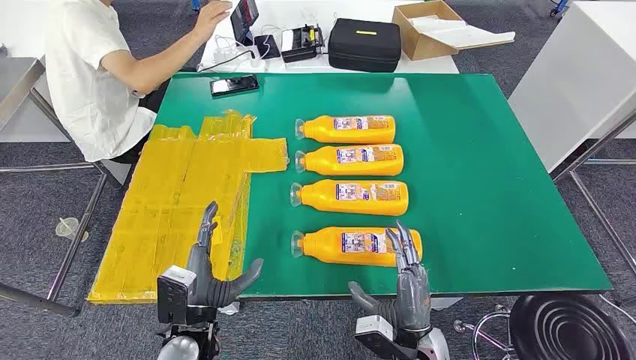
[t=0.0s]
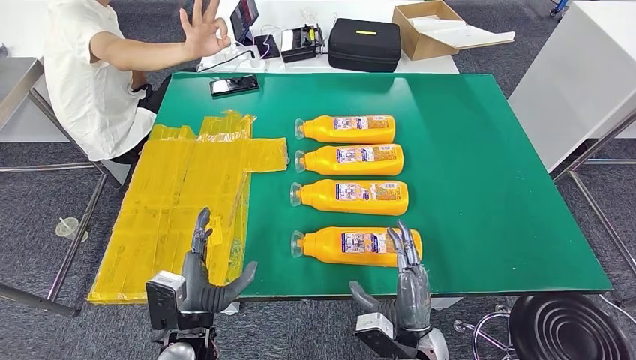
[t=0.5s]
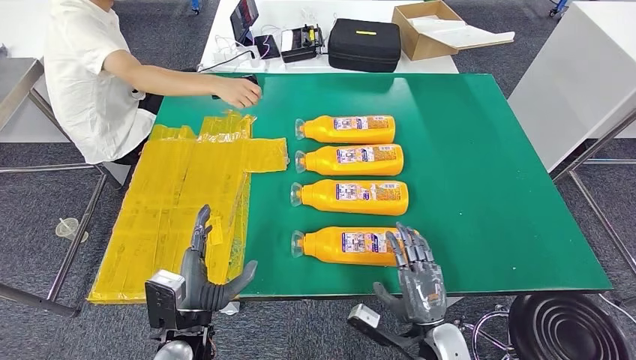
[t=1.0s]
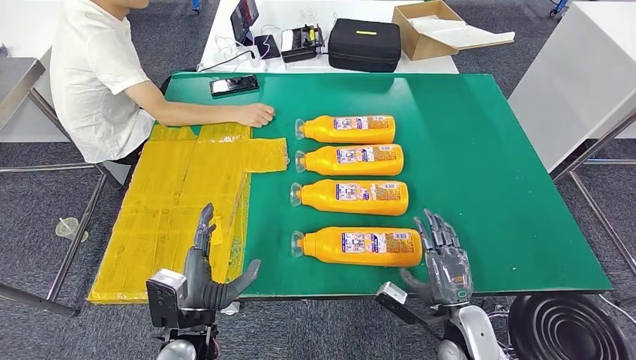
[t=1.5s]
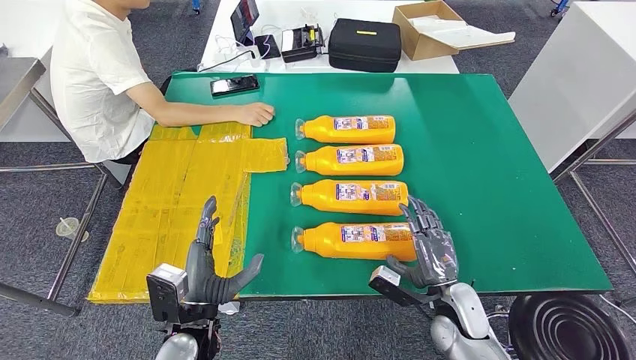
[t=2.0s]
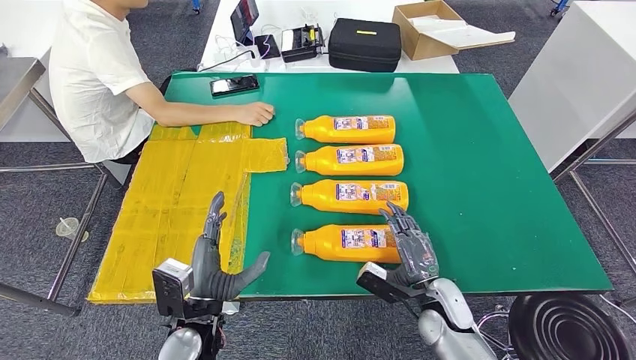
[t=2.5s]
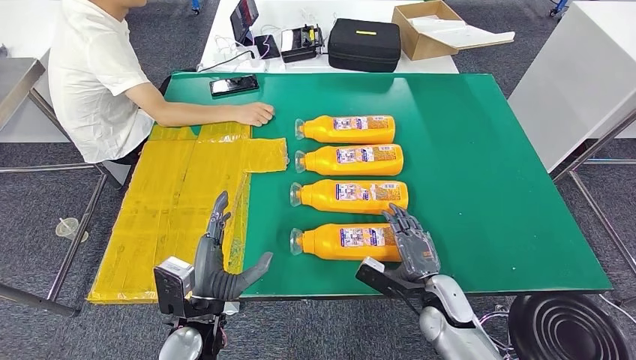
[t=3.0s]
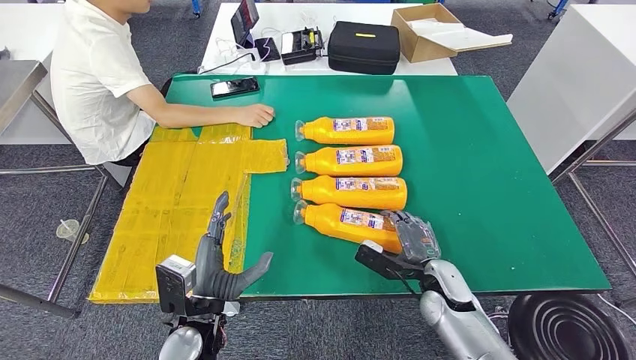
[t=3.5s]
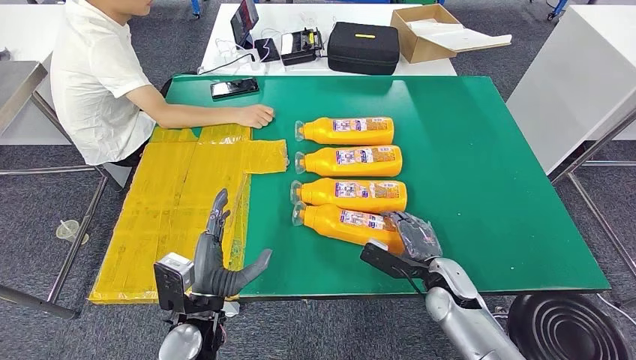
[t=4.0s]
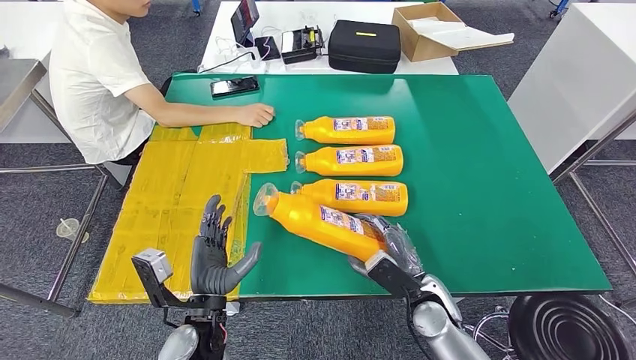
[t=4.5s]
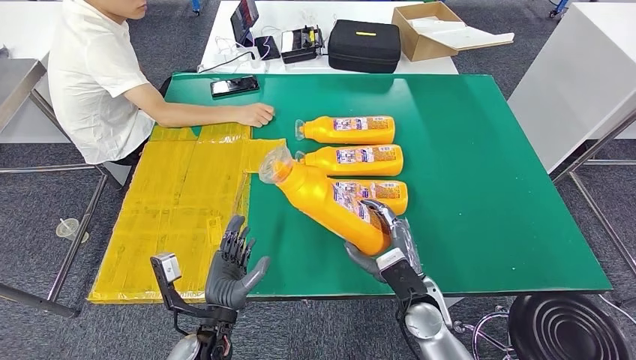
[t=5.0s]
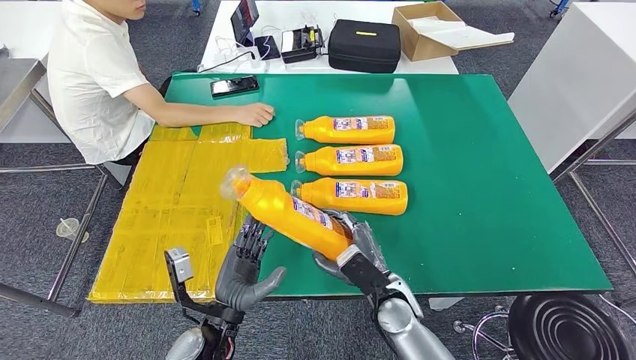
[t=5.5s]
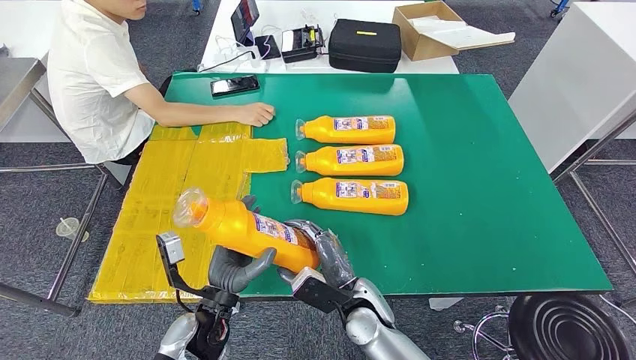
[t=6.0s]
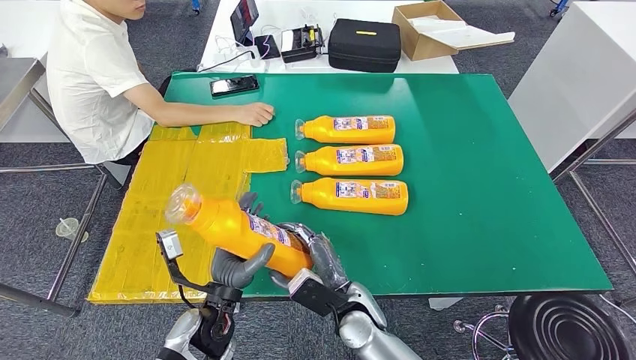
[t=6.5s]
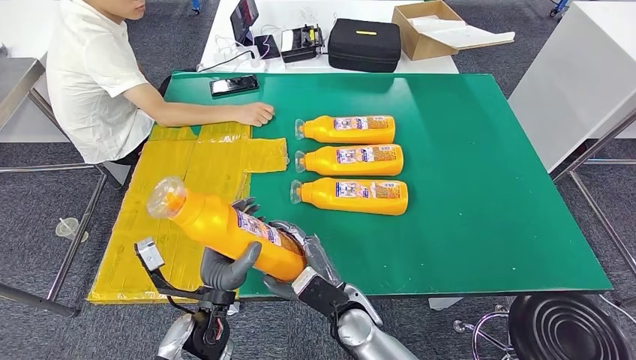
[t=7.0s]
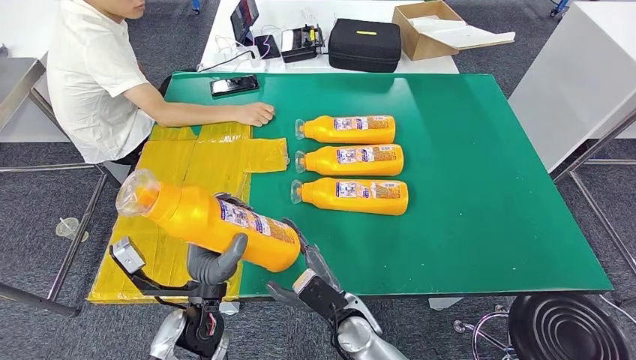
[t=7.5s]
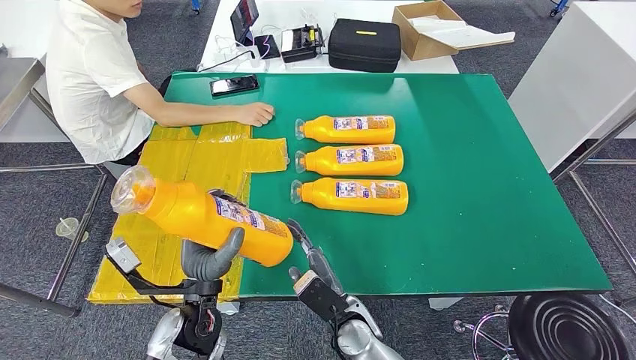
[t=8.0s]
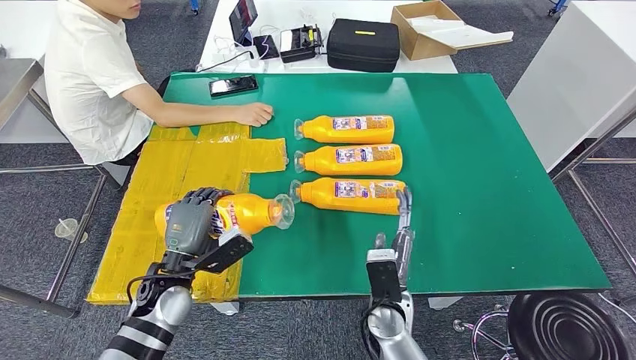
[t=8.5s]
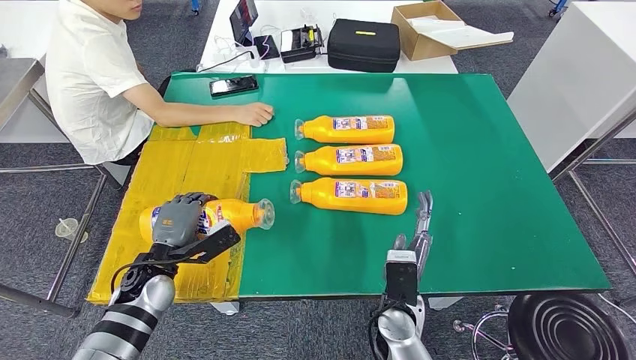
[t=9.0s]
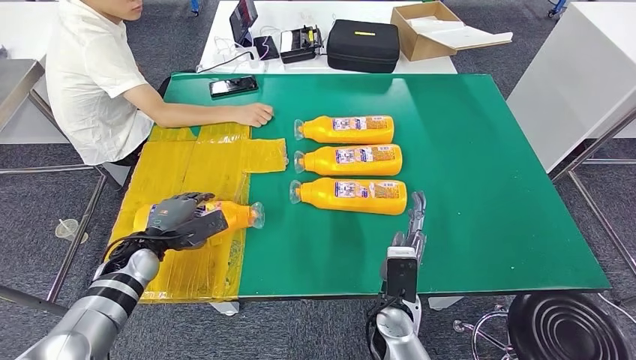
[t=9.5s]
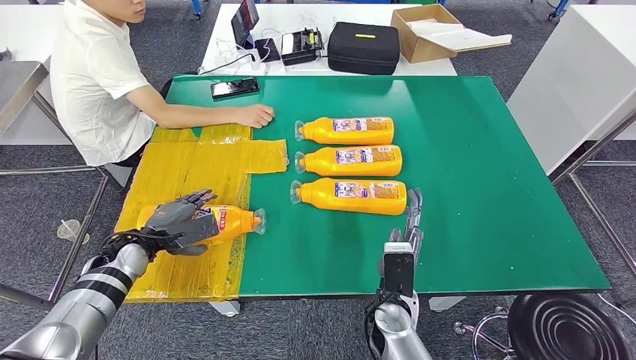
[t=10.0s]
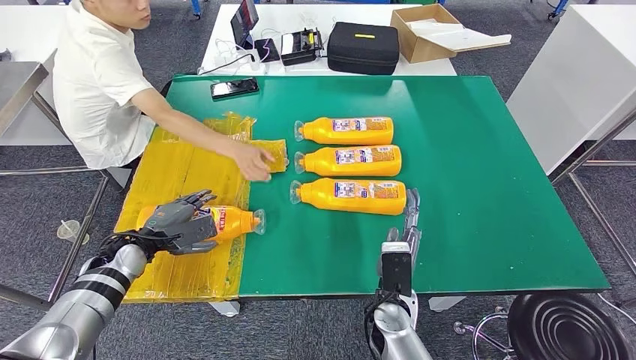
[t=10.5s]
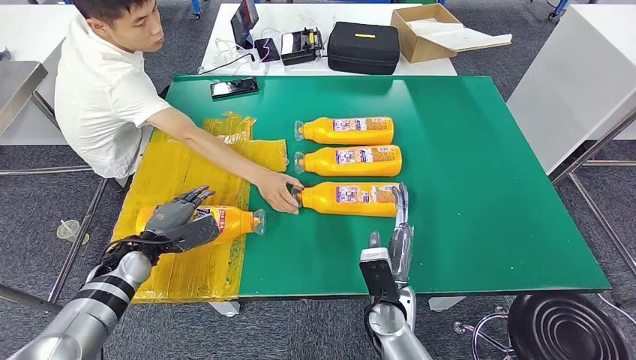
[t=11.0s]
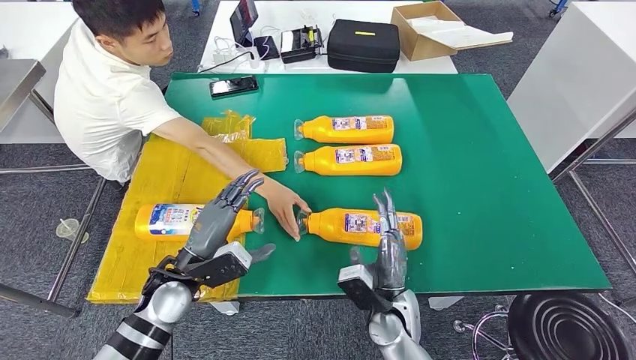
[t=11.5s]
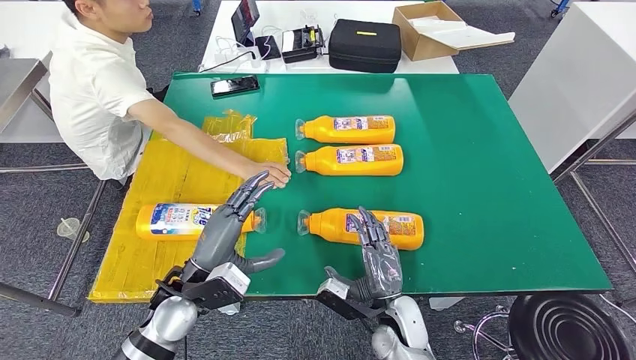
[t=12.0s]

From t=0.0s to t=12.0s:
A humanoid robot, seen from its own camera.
Step, from t=0.0s to t=6.0s: Take the bottle from the table.
Step, from t=6.5s to t=10.0s: Flip the bottle to face forward.
From t=4.0s to t=6.0s: The right hand shifts about 15 cm to the left.
From t=6.0s to t=8.0s: The hands make only small movements.

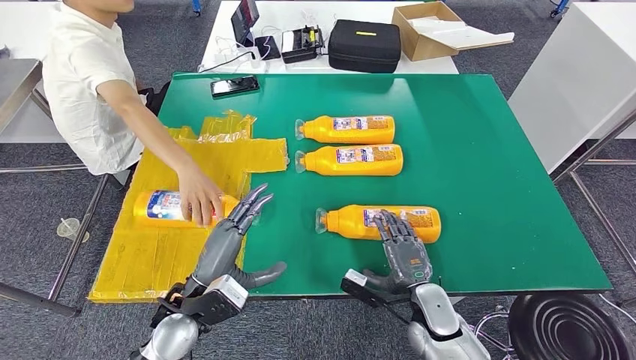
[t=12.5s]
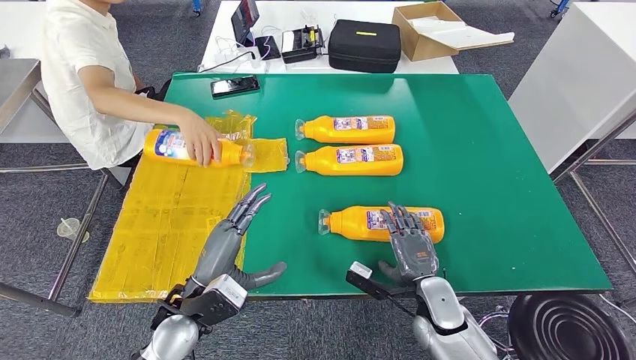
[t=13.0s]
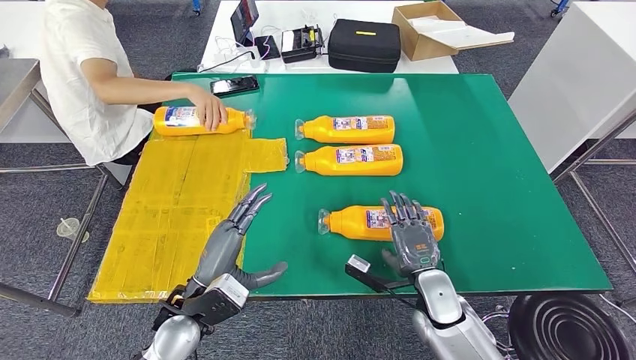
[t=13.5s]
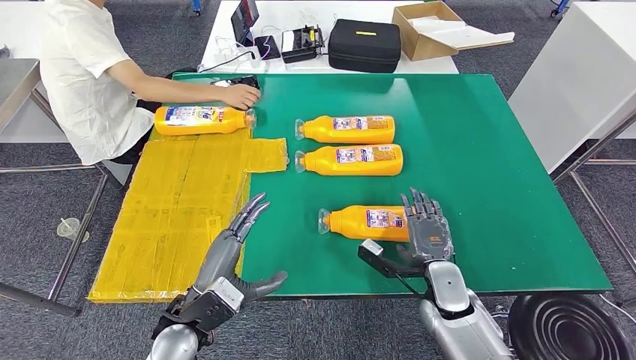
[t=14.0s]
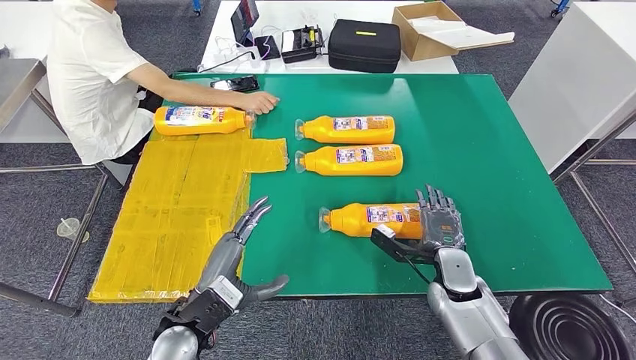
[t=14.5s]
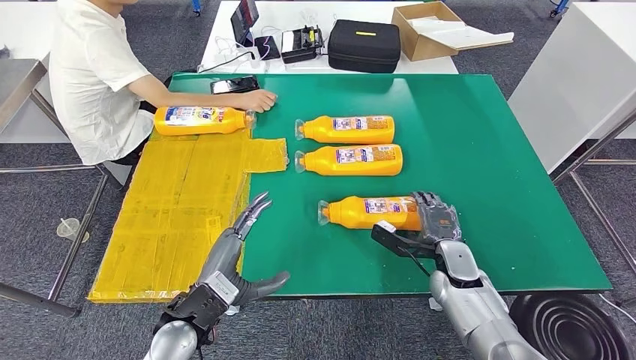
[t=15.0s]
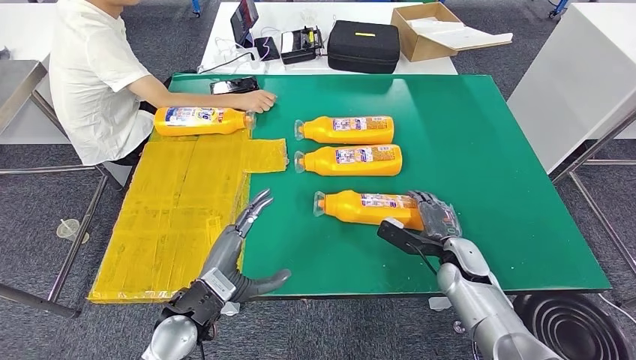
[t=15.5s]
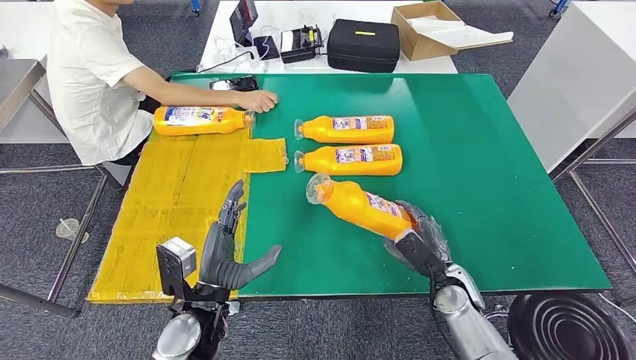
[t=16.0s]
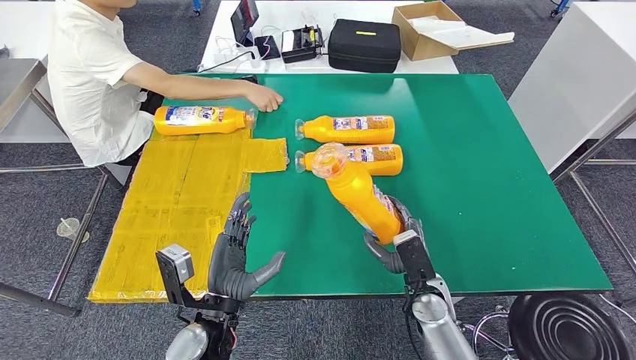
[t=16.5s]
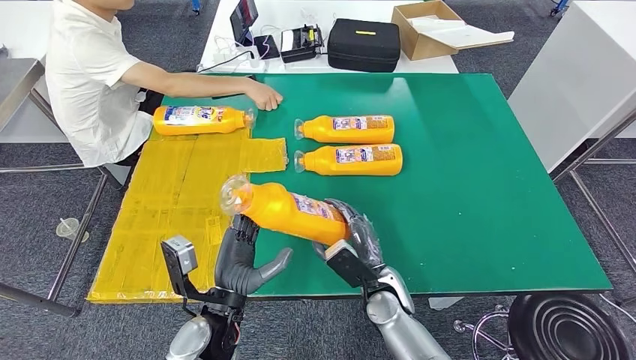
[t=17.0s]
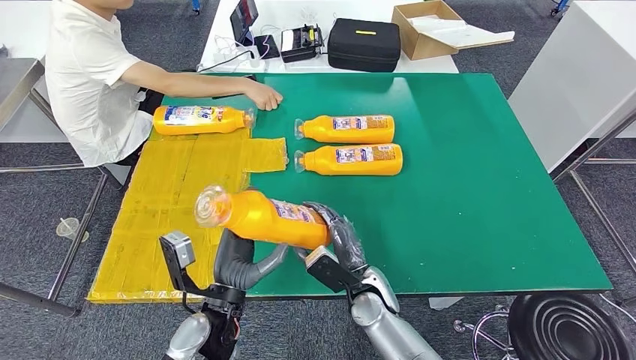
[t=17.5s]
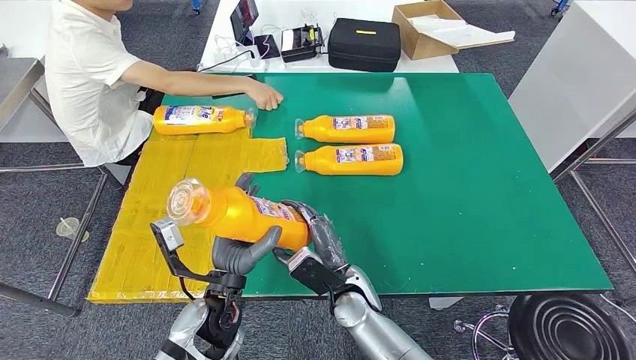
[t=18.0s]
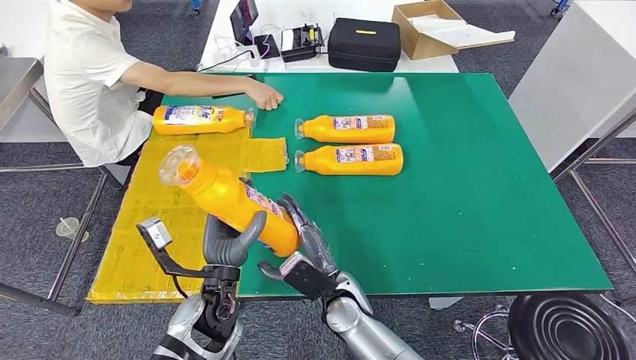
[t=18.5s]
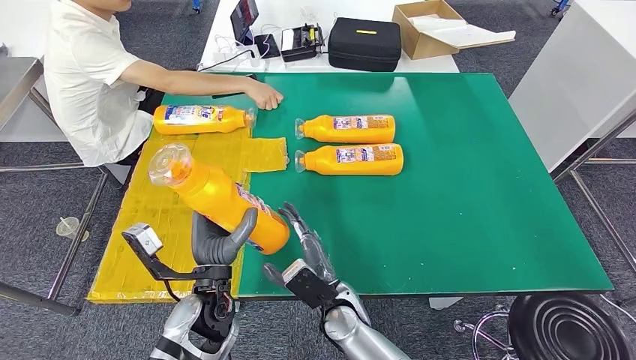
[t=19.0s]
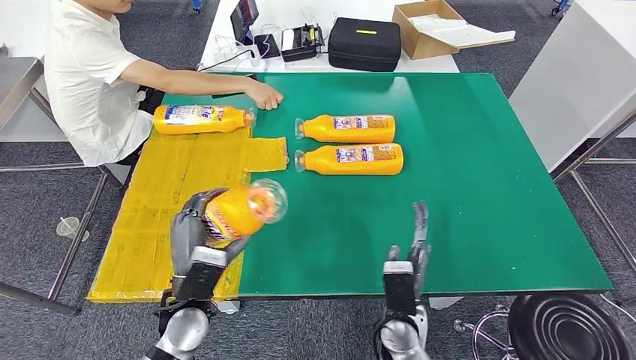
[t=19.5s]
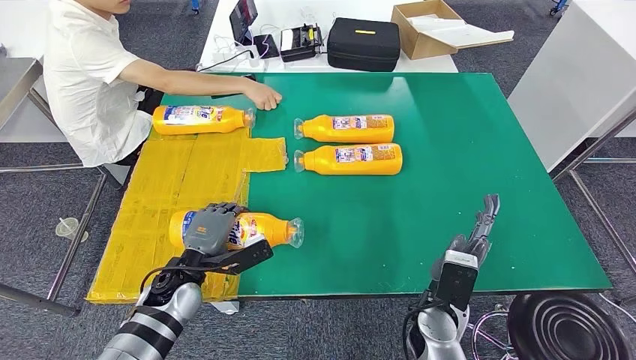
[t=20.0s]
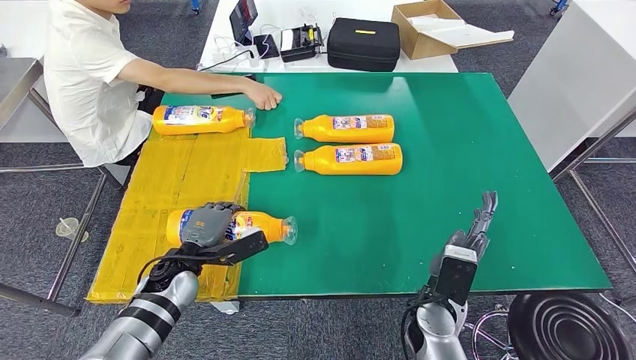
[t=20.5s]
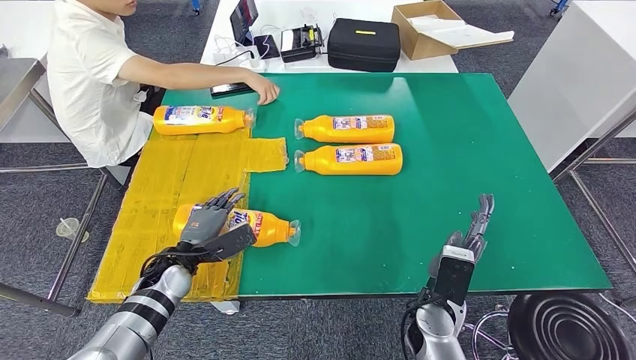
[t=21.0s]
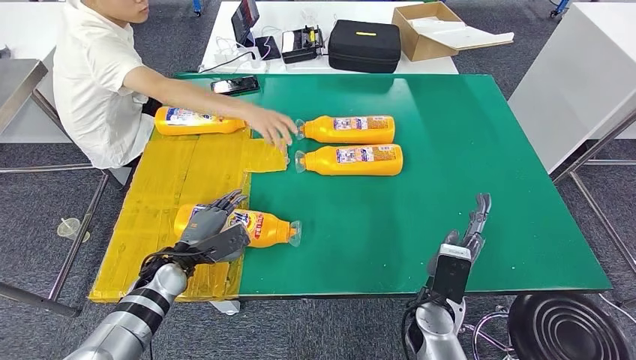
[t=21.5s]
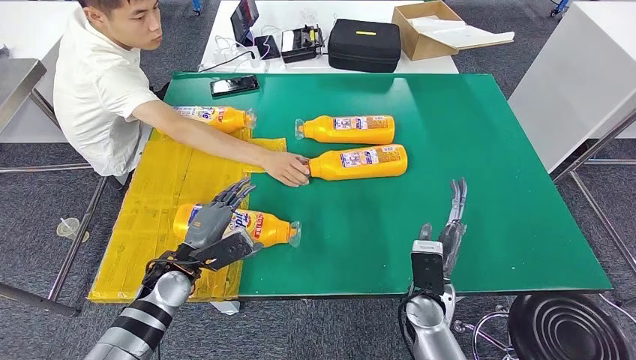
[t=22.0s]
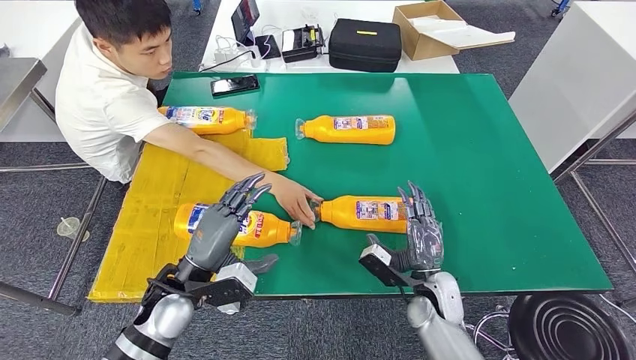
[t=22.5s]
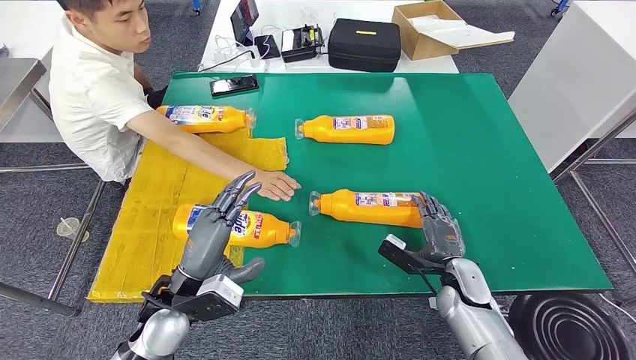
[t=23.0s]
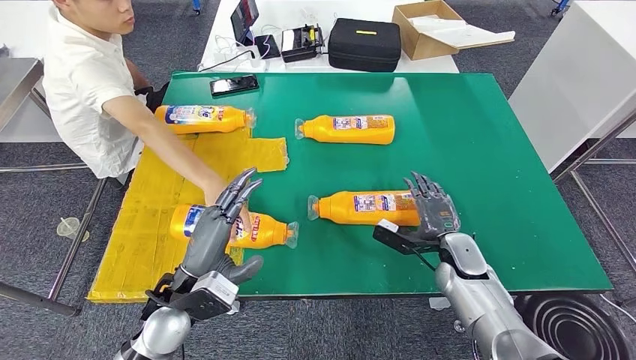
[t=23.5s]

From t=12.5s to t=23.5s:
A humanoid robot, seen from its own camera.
Step, from t=12.5s to t=16.5s: Pick up the bottle from the table.
Step, from t=17.0s to t=20.5s: Flip the bottle to face forward.
From t=12.5s to t=14.5s: The right hand heads forward and to the right, covering approximately 10 cm.
From t=16.0s to t=18.0s: The right hand moves to the left, about 20 cm.
From t=18.0s to t=20.0s: The left hand travels to the left and forward by approximately 10 cm, while the right hand heads to the right, covering about 15 cm.
From t=20.0s to t=21.5s: The left hand ends up about 5 cm from where it was.
